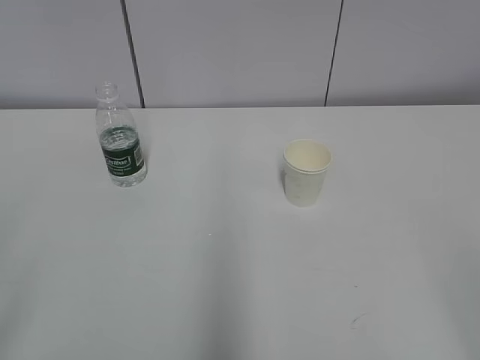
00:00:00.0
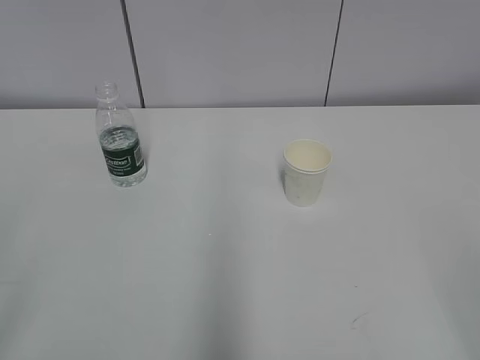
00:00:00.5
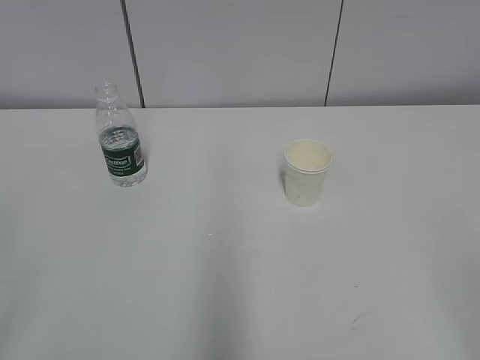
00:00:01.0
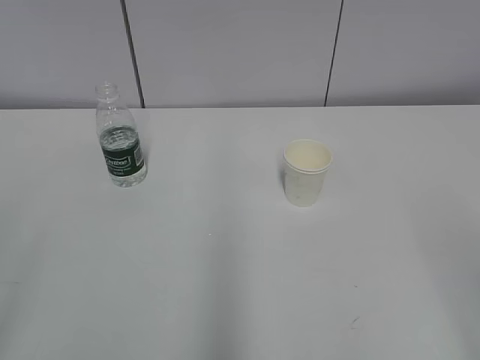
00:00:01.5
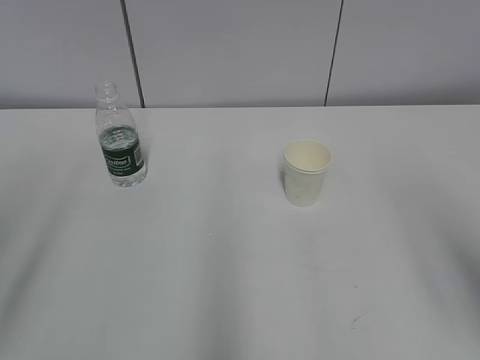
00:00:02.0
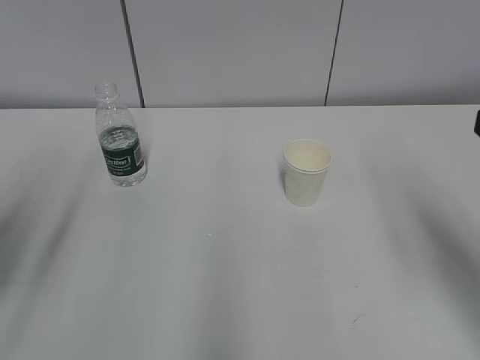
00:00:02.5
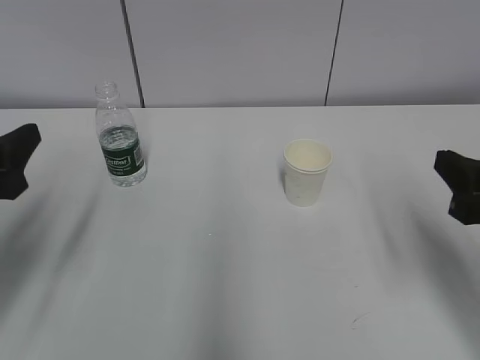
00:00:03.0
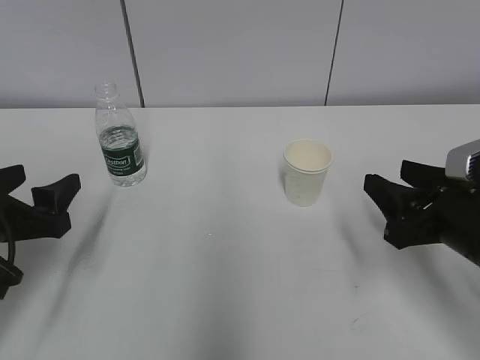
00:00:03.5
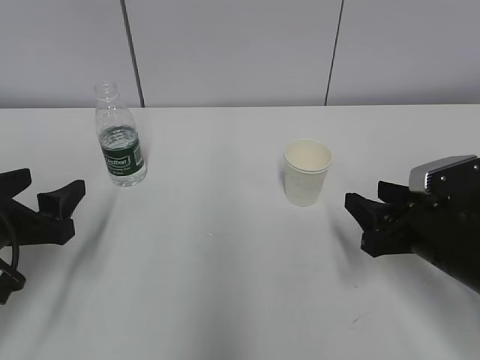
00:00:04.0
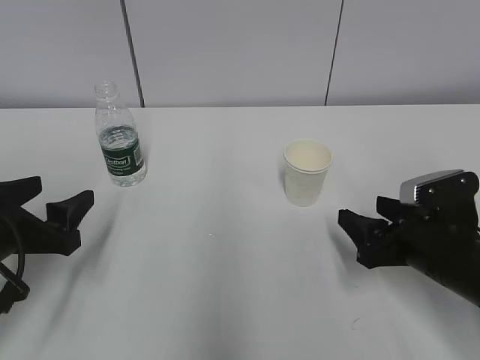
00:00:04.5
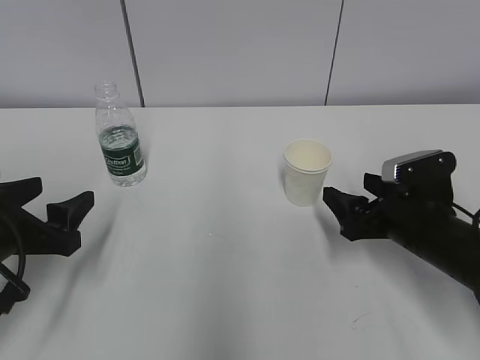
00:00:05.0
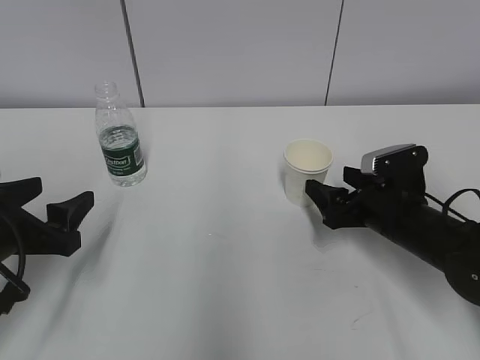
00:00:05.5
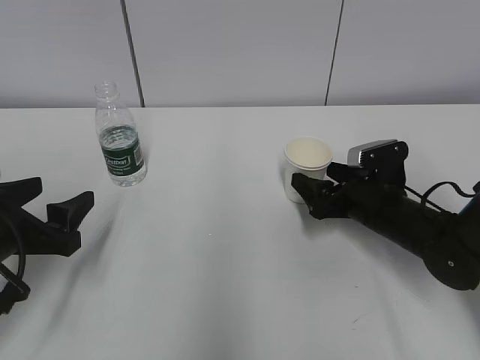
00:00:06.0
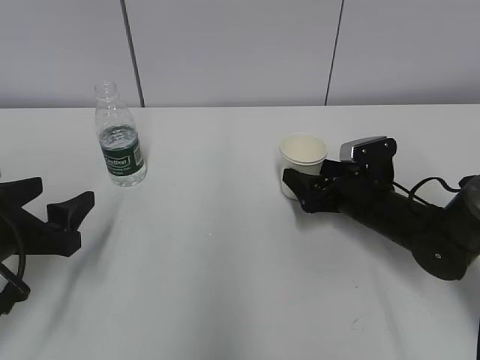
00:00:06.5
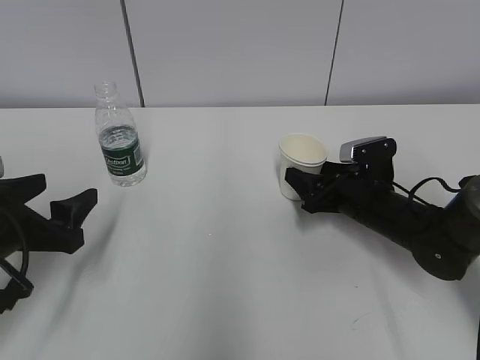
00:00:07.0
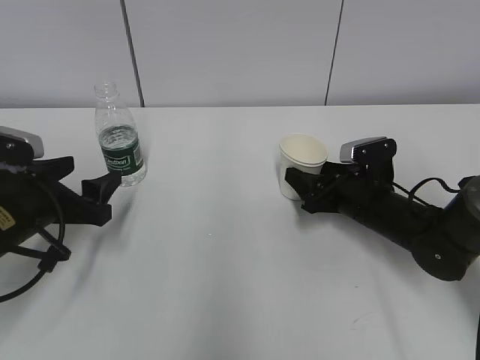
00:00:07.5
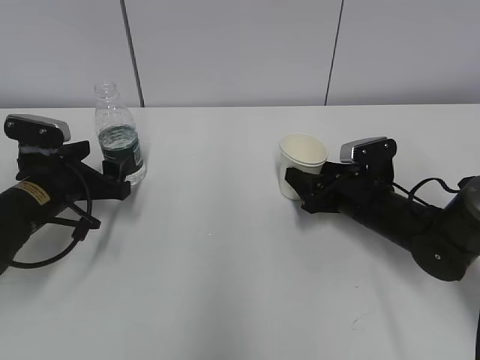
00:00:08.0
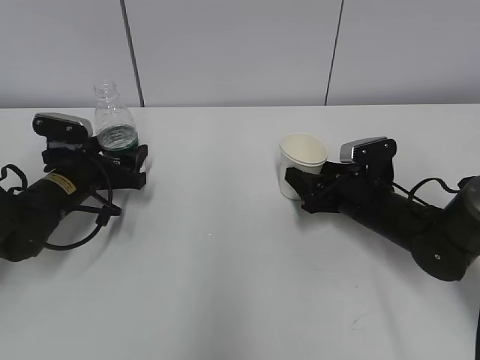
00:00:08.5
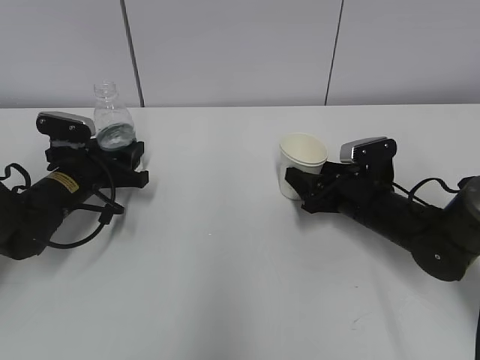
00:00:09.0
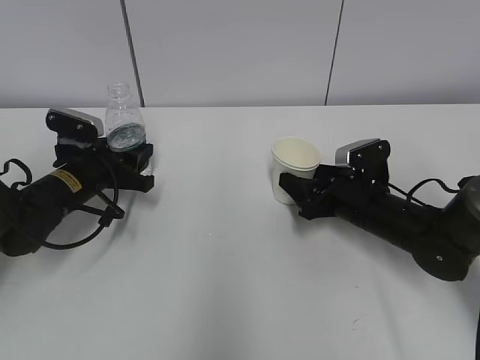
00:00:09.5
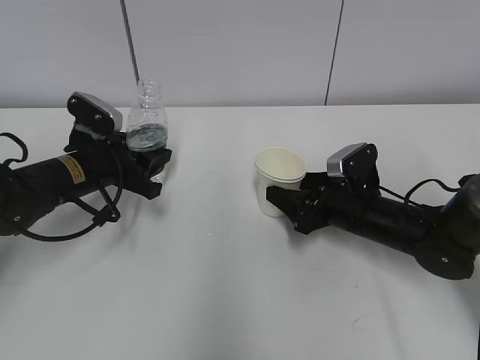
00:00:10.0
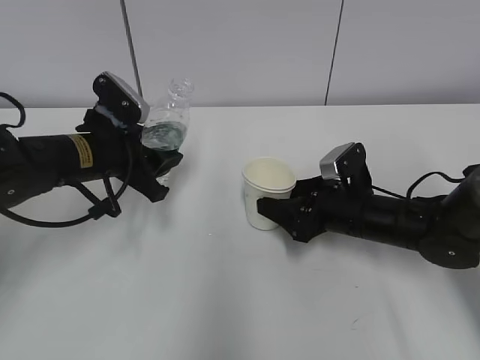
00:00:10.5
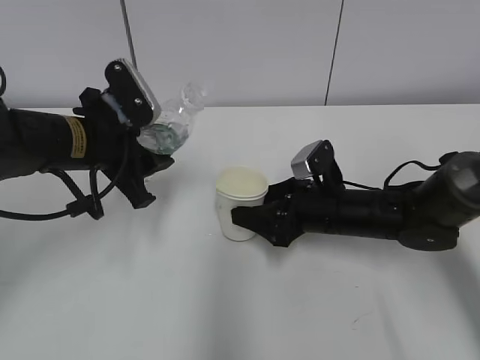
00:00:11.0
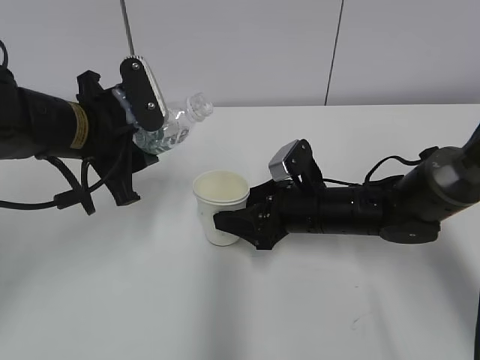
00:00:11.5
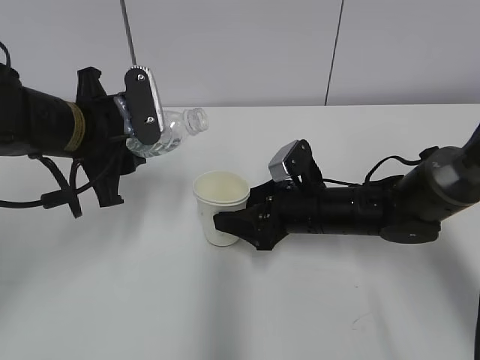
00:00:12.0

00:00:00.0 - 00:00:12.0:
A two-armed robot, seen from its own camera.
Step, 00:00:00.0 - 00:00:05.5: Grab the paper cup with the right hand.
Step, 00:00:06.0 - 00:00:07.5: Grab the water bottle with the left hand.
Step, 00:00:08.0 - 00:00:11.5: Lift the paper cup with the right hand.
00:00:02.0 - 00:00:04.0: The two grippers go some 25 cm downward and forward.
00:00:04.0 - 00:00:06.0: The right gripper travels forward by approximately 10 cm, and opens up.
00:00:06.0 - 00:00:08.0: The left gripper goes some 10 cm forward. The right gripper closes.
00:00:08.0 - 00:00:10.0: The left gripper shifts by roughly 5 cm, and closes up.
00:00:10.0 - 00:00:12.0: The right gripper heads to the left, covering roughly 5 cm, while the left gripper heads upward, covering roughly 10 cm.

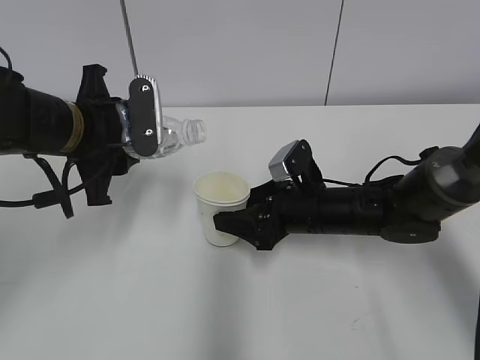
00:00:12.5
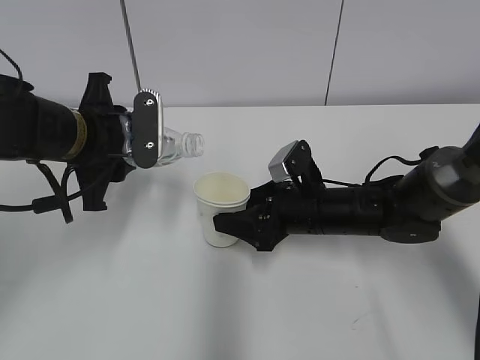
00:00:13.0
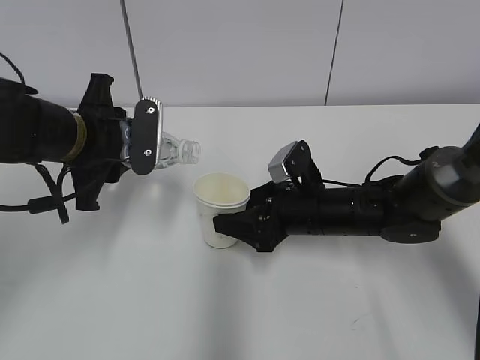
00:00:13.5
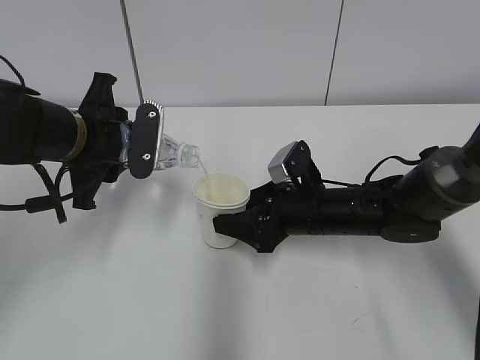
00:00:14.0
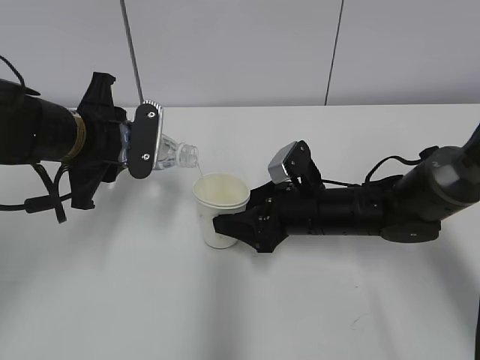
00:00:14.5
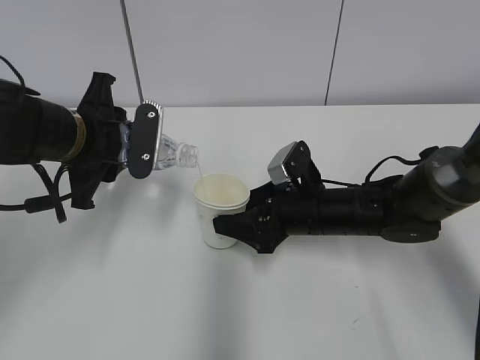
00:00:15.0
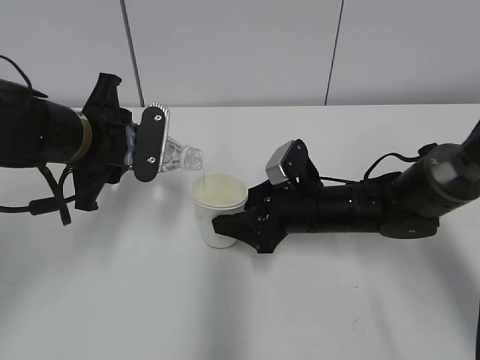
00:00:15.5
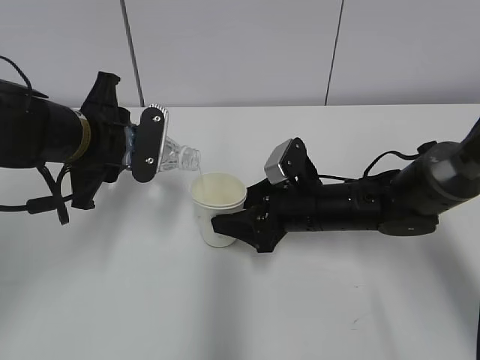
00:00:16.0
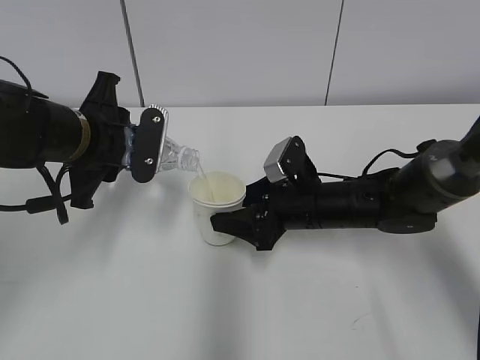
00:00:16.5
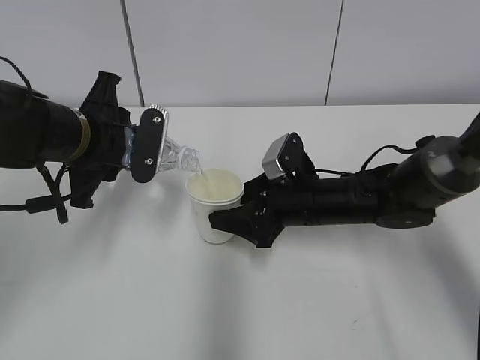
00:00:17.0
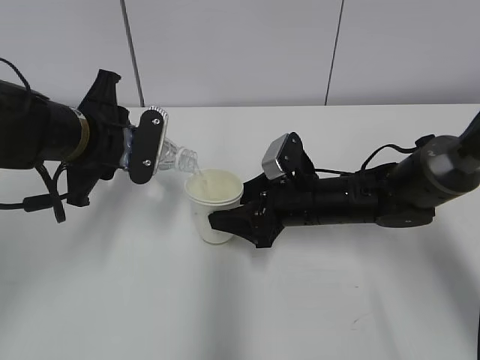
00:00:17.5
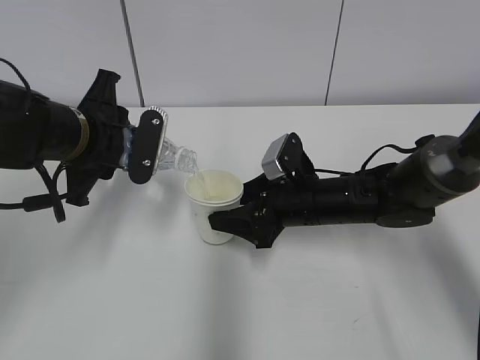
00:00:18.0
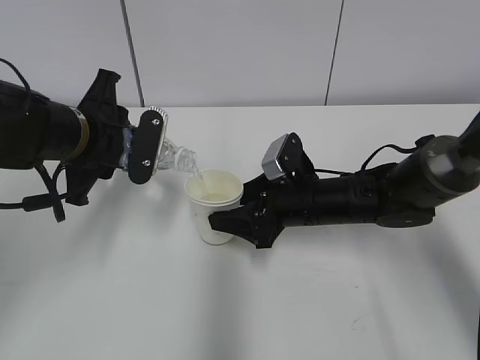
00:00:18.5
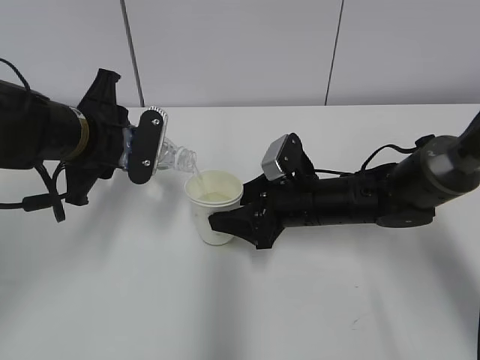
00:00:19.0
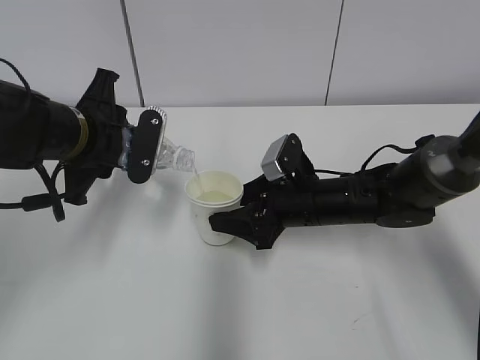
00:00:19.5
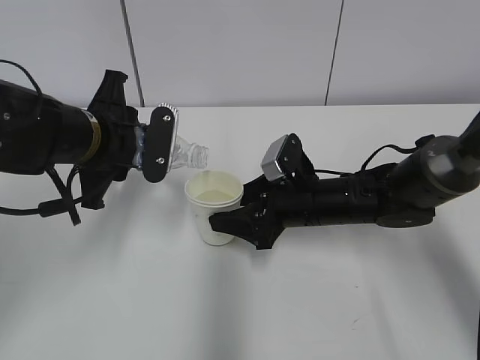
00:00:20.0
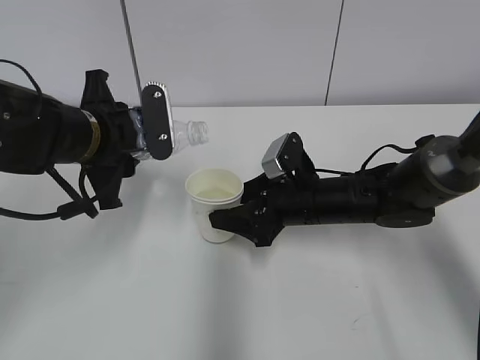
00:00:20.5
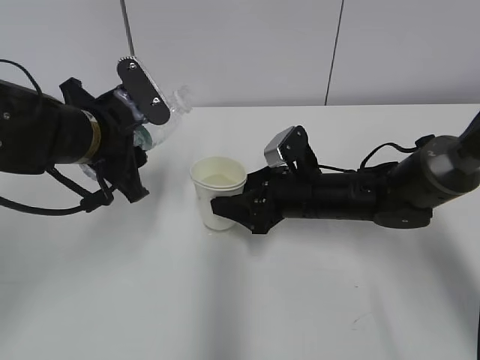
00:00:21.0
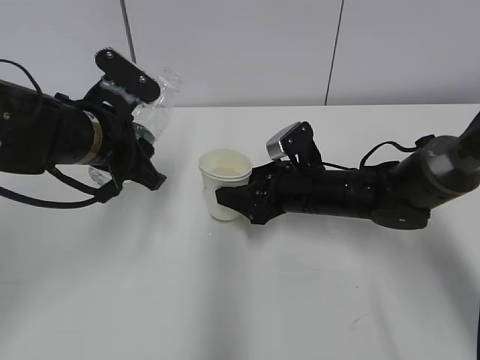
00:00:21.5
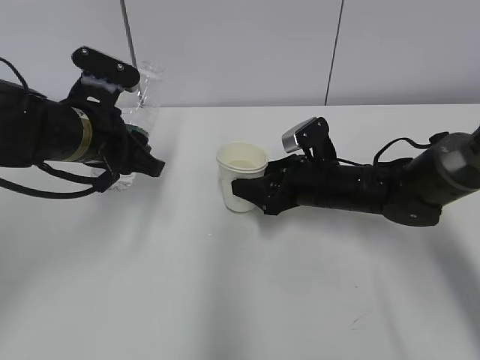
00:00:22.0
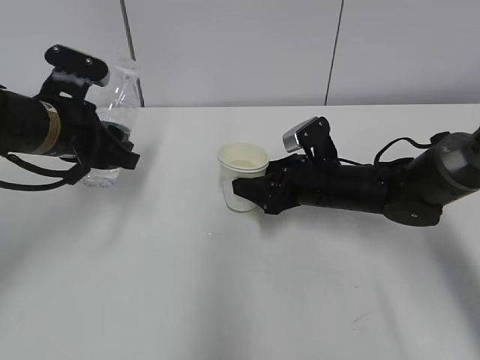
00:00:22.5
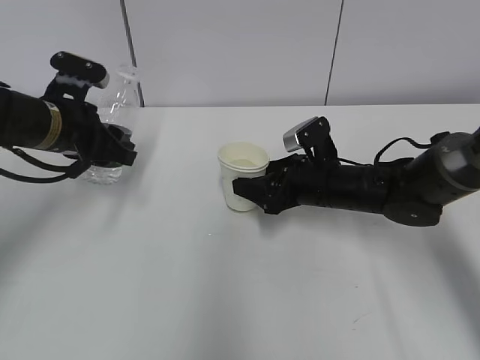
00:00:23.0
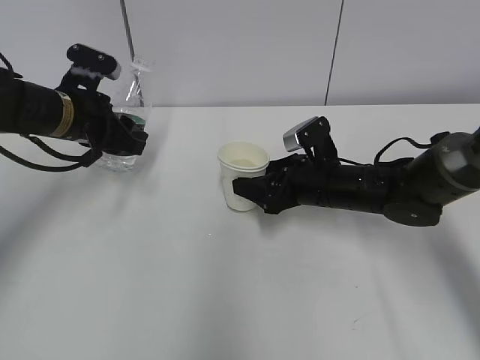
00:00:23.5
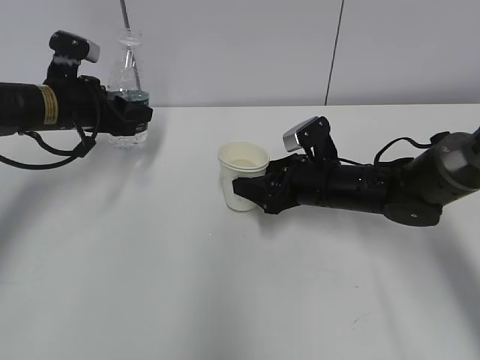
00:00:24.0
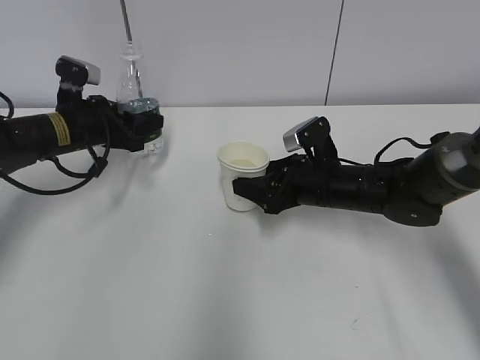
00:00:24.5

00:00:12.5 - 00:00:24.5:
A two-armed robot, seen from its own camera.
Step, 00:00:12.5 - 00:00:16.5: Fill water with the right hand.
Step, 00:00:12.5 - 00:00:16.5: Pour water with the left hand.
Step, 00:00:17.0 - 00:00:18.5: Collect water with the left hand.
Step, 00:00:19.0 - 00:00:23.0: Place the paper cup with the right hand.
00:00:12.5 - 00:00:14.5: There are only small adjustments of the grippers.
00:00:14.5 - 00:00:16.5: The two grippers keep their place.
00:00:16.5 - 00:00:18.5: The two grippers keep their place.
00:00:18.5 - 00:00:20.5: The grippers move only a little.
00:00:22.5 - 00:00:24.5: The left gripper shifts about 10 cm forward and downward.

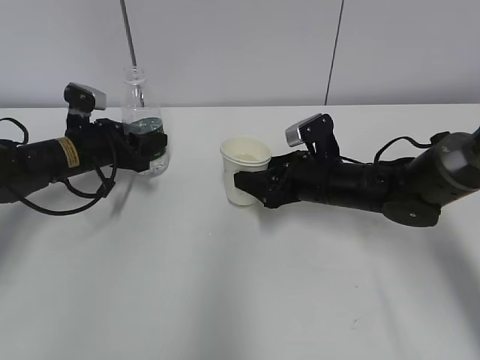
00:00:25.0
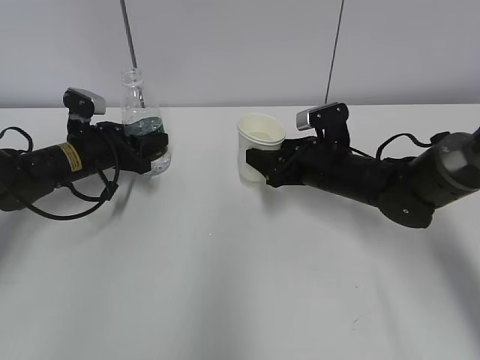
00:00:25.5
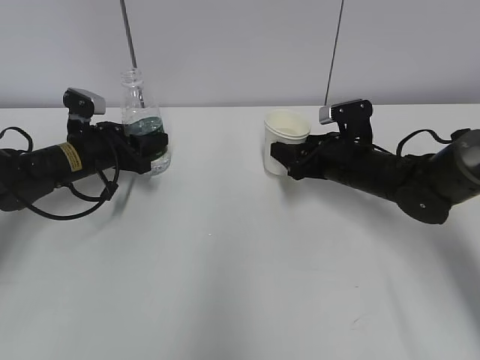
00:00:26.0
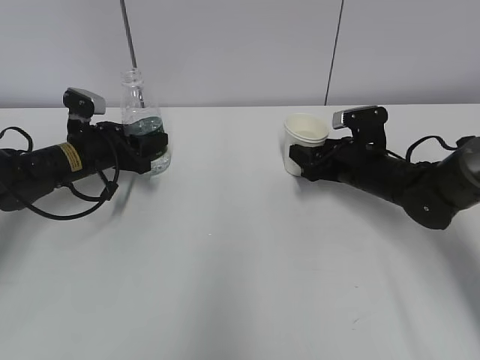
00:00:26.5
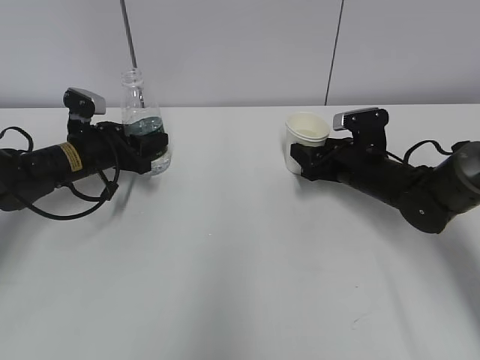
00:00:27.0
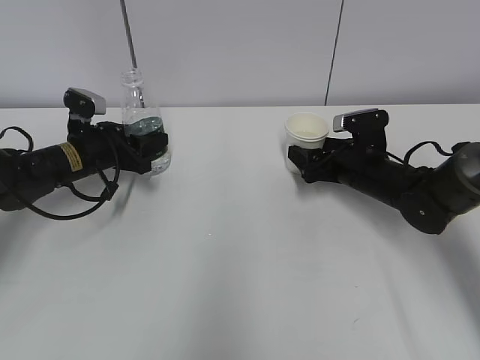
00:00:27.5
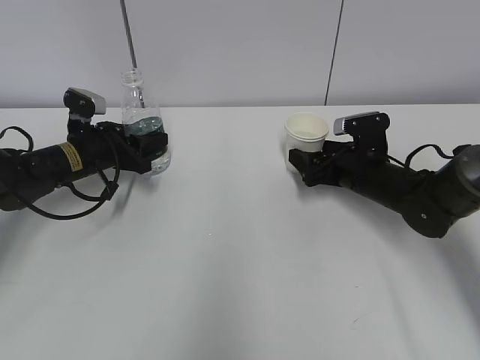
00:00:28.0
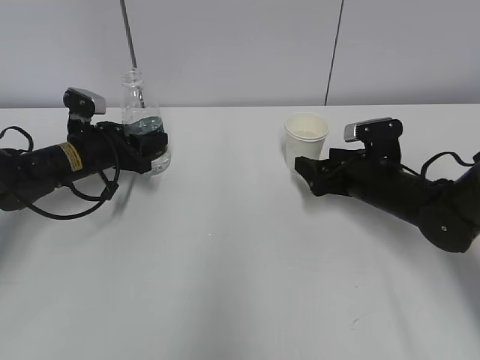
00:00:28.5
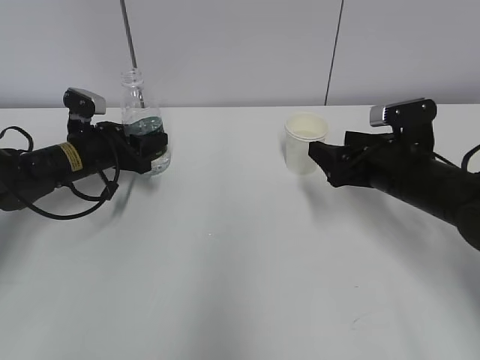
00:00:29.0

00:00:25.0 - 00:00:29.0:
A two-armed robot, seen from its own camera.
00:00:25.0 - 00:00:27.0: The right gripper travels to the right by approximately 5 cm.
00:00:27.0 - 00:00:29.0: The right gripper travels backward and upward by about 10 cm, and opens.
